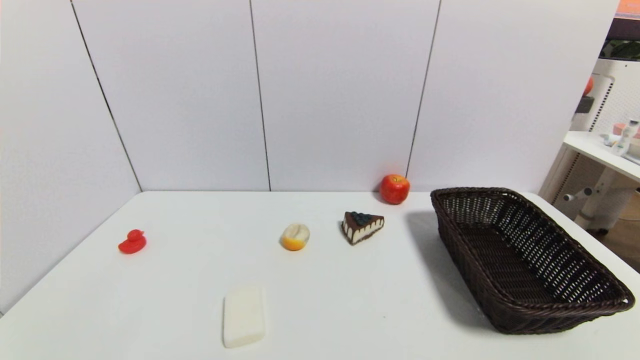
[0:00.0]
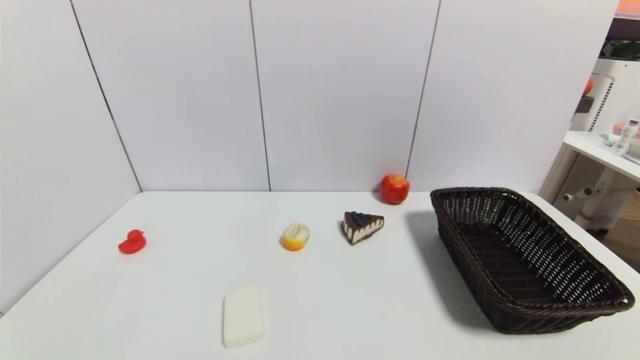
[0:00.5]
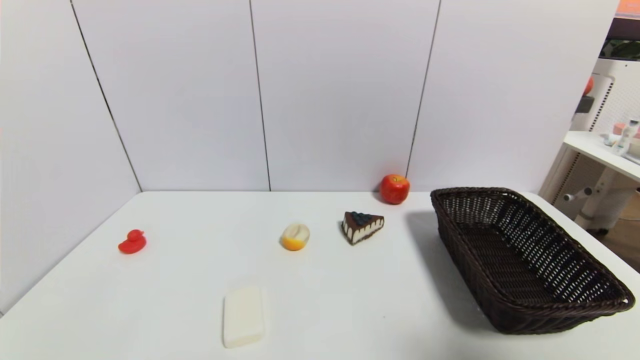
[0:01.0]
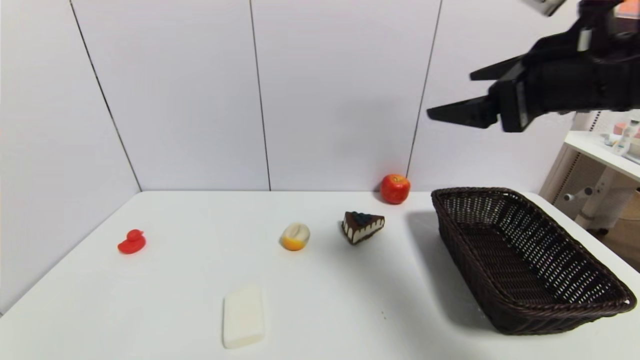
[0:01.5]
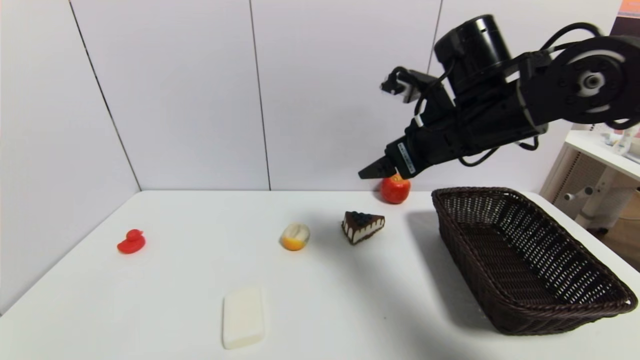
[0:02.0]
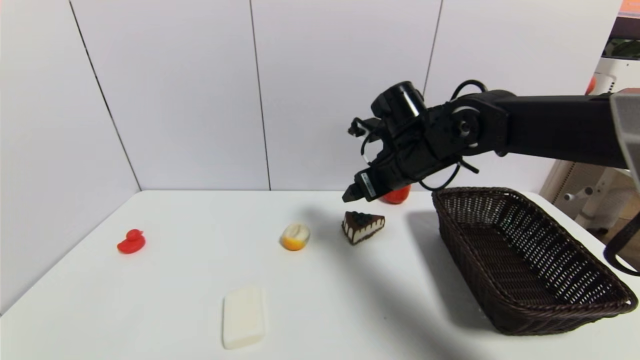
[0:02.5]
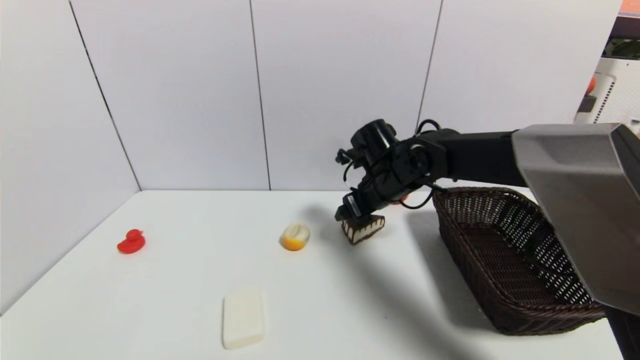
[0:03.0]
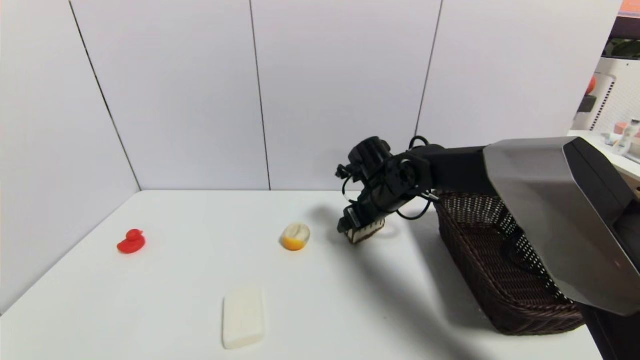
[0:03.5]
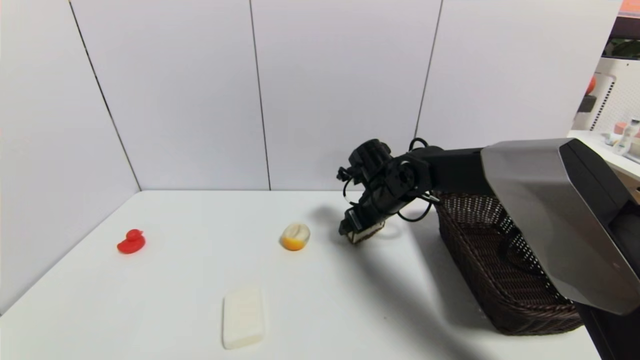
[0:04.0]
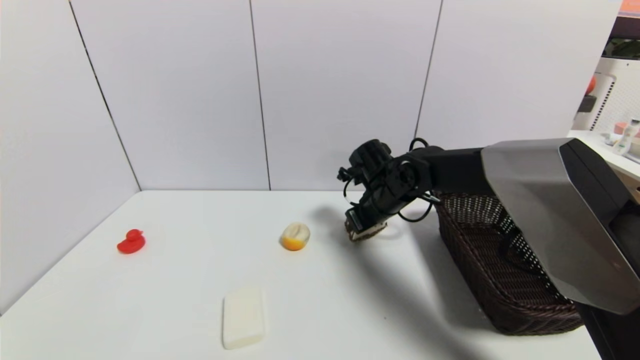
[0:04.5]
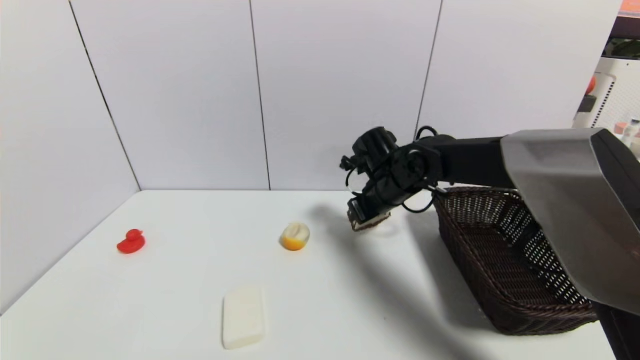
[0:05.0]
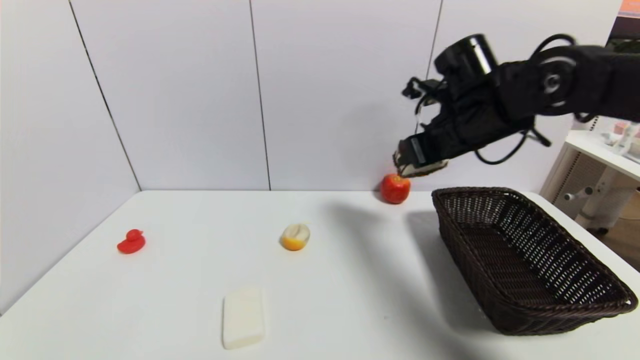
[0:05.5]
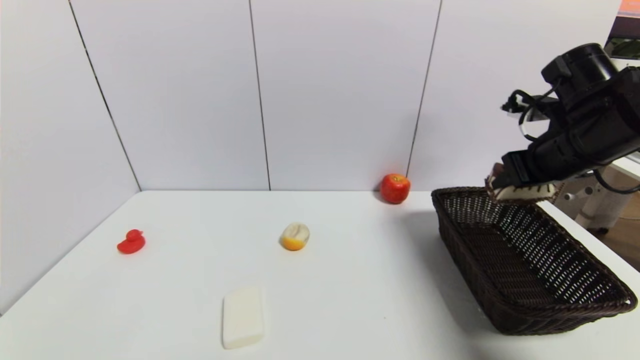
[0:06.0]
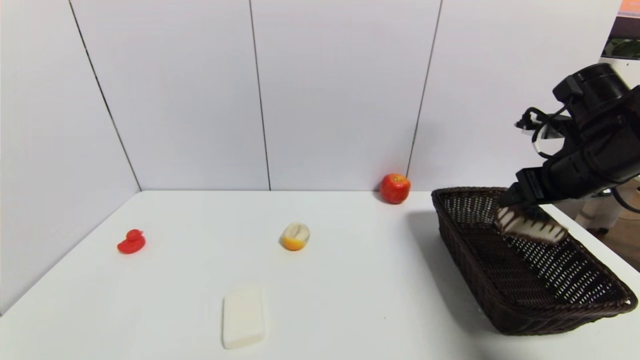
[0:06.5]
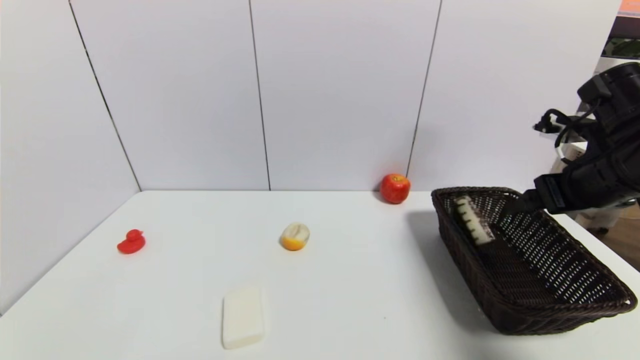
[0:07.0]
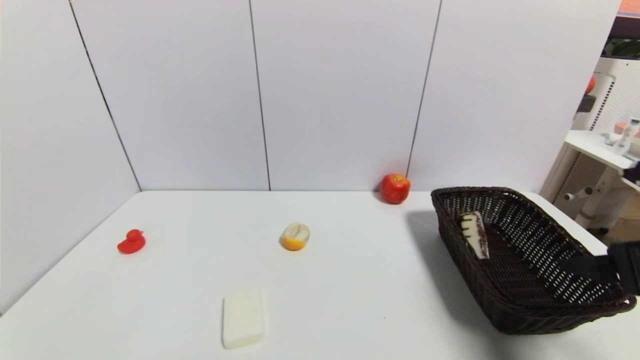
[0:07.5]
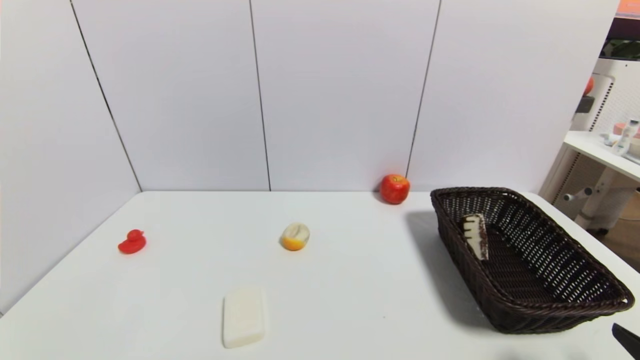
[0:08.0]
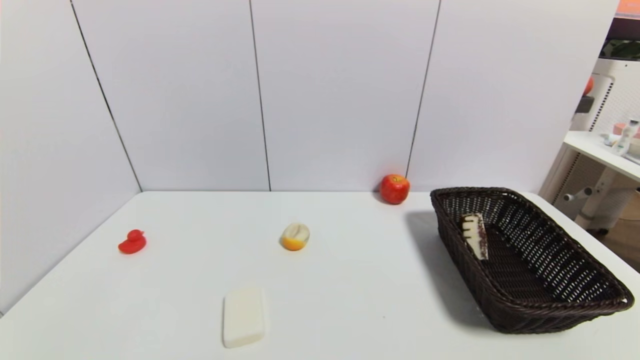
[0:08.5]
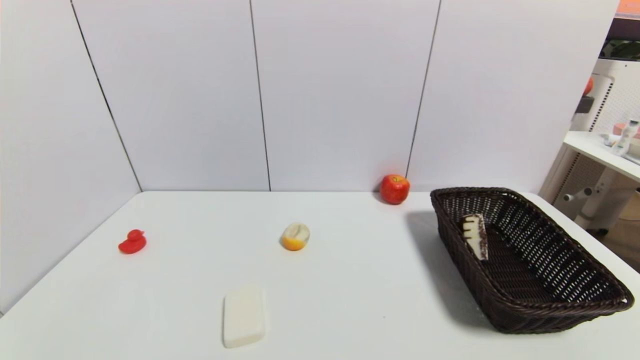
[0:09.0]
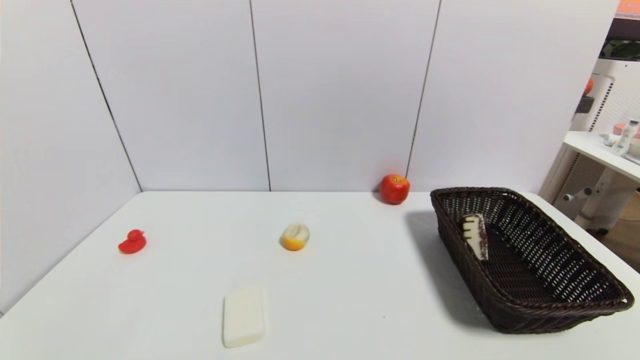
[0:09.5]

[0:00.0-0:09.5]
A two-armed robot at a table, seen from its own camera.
Task of the whole recording: use a gripper to pick the target object and place on the brown basket.
Step, 0:00.0 to 0:04.0: Grasp the chocolate cake with the right gripper.
Step, 0:04.5 to 0:07.0: Place the chocolate cake into the basket with the right gripper.
0:00.0 to 0:02.0: The right gripper travels forward, upward and to the left by roughly 40 cm.
0:02.0 to 0:04.0: The right gripper heads downward and forward, covering some 20 cm.
0:04.0 to 0:05.5: The right gripper travels upward and to the right by some 20 cm, and closes.
0:05.5 to 0:07.5: The right gripper is displaced backward and to the right by approximately 25 cm, and opens up.
0:07.5 to 0:09.5: The right gripper shifts some 20 cm backward and downward.

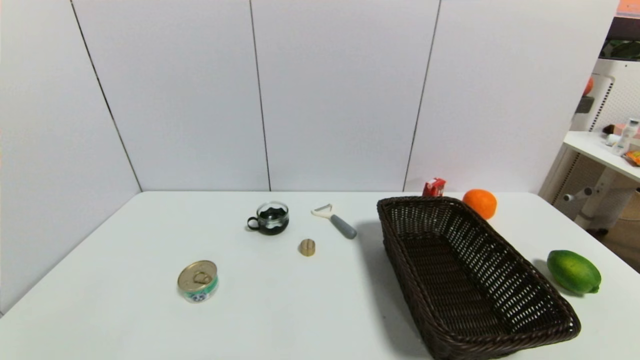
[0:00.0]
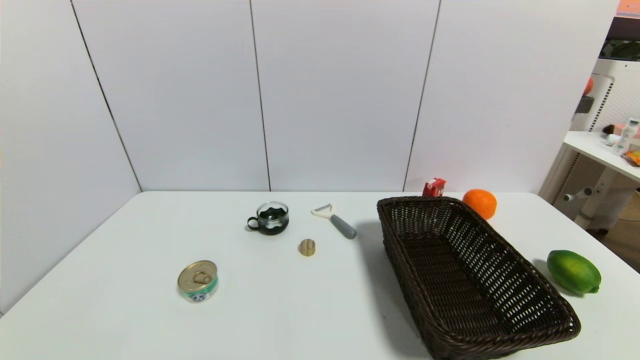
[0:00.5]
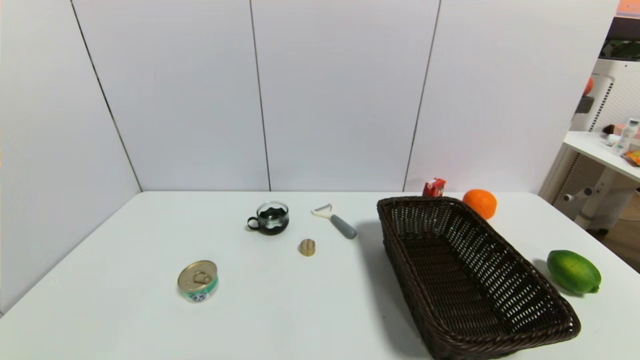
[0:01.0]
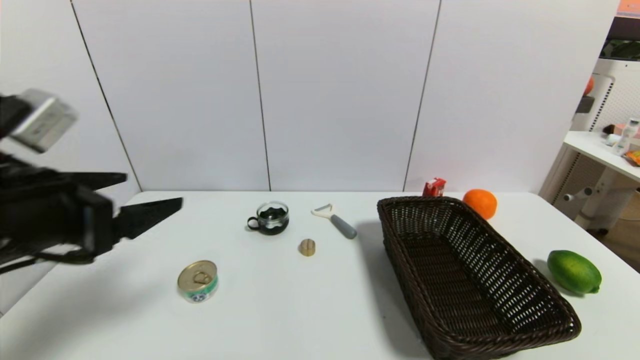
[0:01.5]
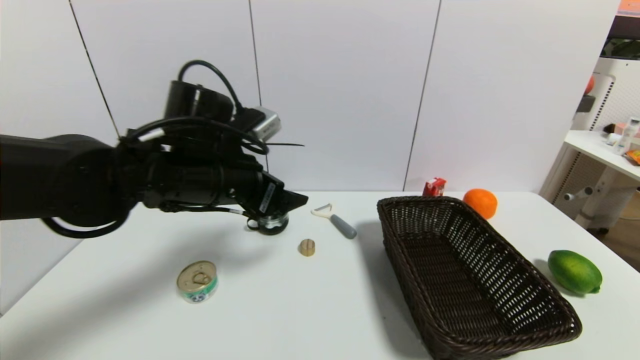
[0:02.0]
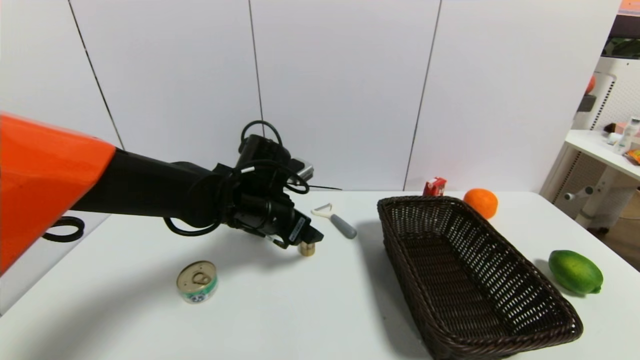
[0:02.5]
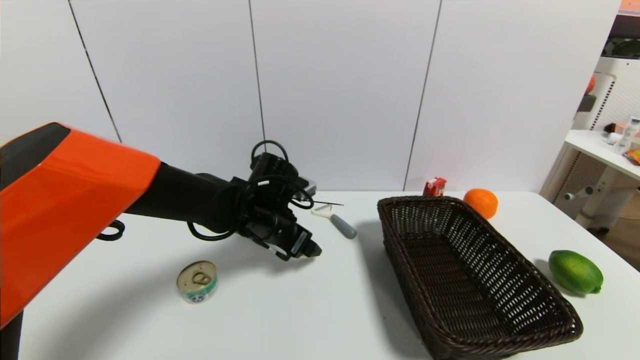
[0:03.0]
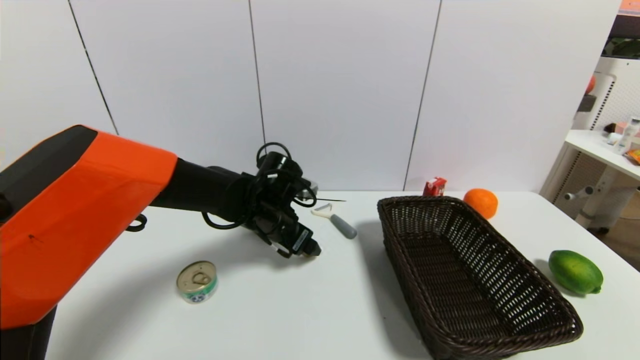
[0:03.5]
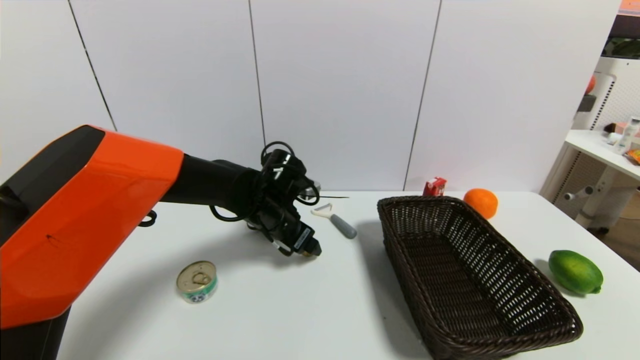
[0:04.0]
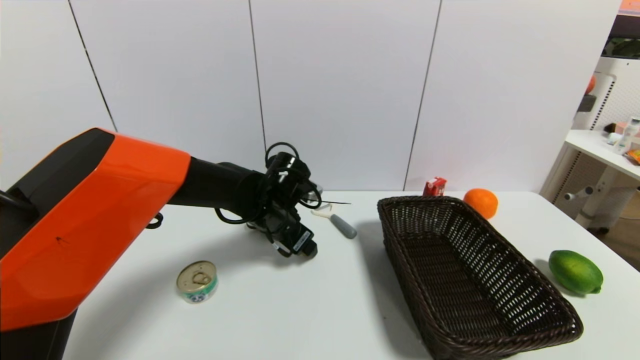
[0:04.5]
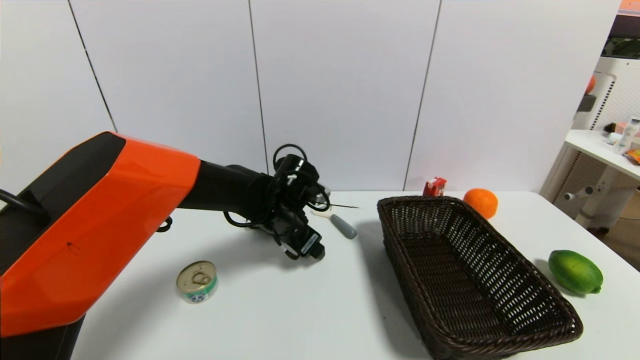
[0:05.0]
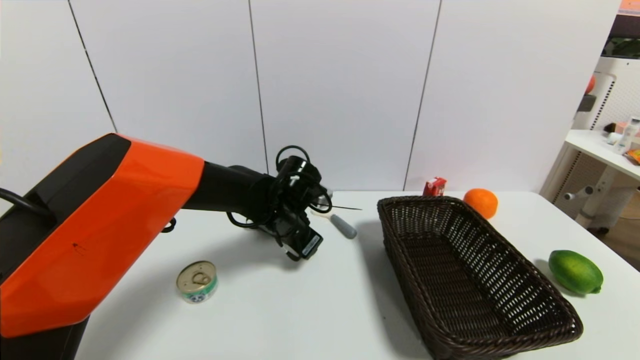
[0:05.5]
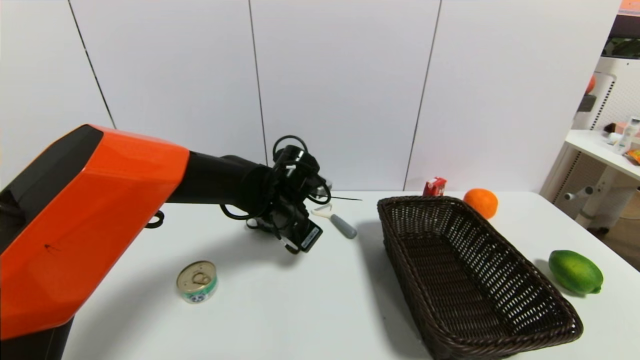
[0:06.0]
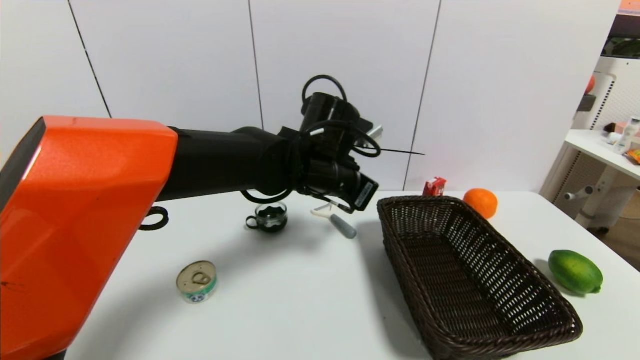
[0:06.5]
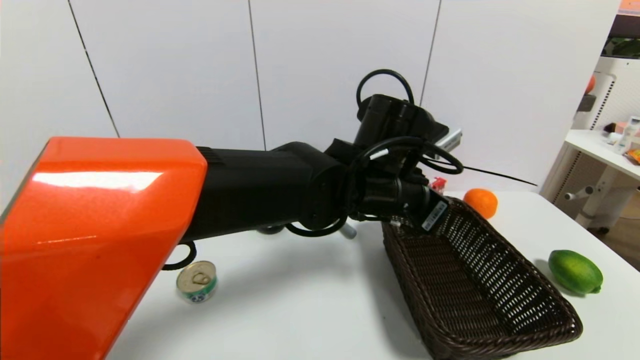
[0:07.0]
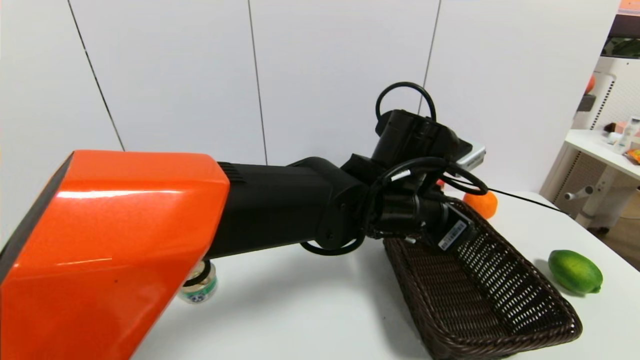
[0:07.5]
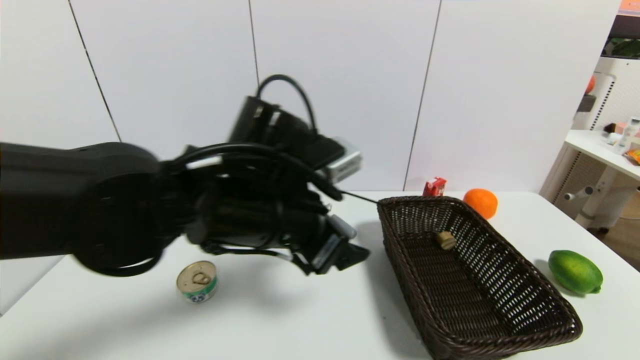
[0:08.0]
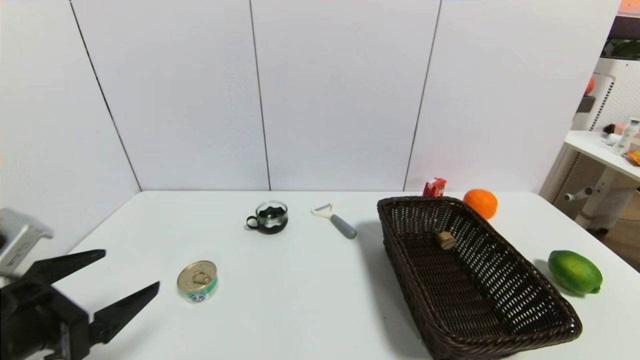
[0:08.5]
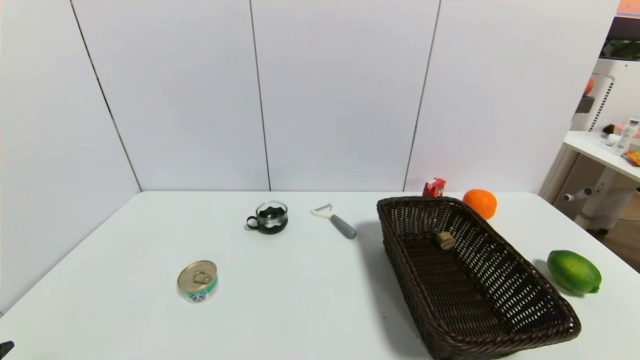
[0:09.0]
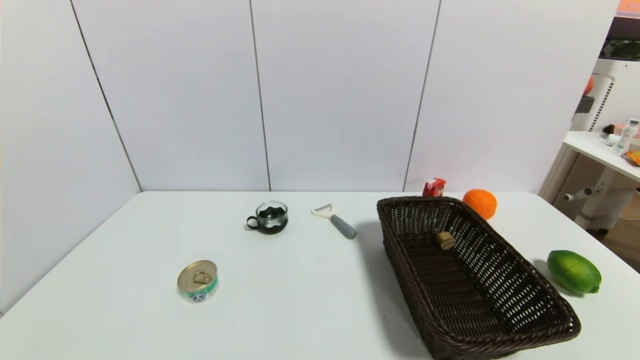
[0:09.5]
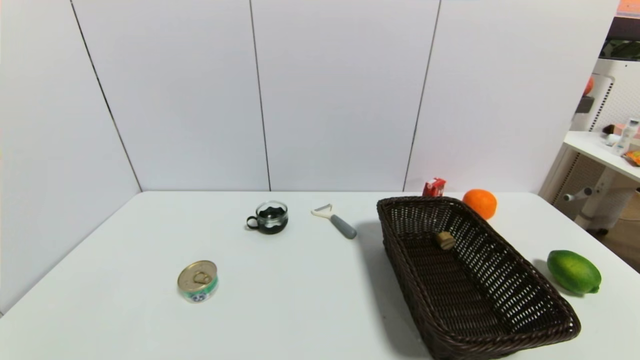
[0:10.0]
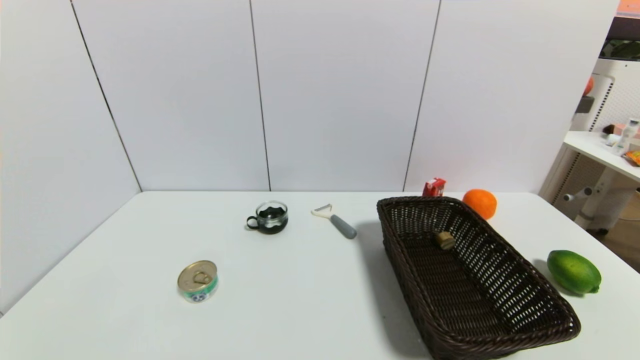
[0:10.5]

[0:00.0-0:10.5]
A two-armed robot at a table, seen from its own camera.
Task of the whole recording: use a gripper to pick the target object and place on the brown basket.
Step, 0:00.0 to 0:05.5: Grasp the round wooden block with the left gripper.
Step, 0:06.0 to 0:07.5: Place the round wooden block into the basket with the left gripper.
0:00.0 to 0:02.0: The left gripper heads forward, to the right and upward, covering approximately 40 cm.
0:02.0 to 0:04.0: The left gripper is displaced downward and forward by about 15 cm.
0:04.0 to 0:06.5: The left gripper shifts about 15 cm upward and to the right, and closes up.
0:06.5 to 0:08.5: The left gripper goes roughly 35 cm to the left and backward, and opens.
0:08.5 to 0:10.5: The left gripper travels backward and downward by approximately 15 cm.
